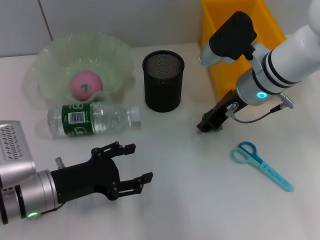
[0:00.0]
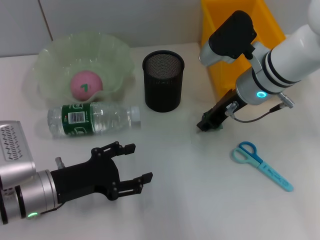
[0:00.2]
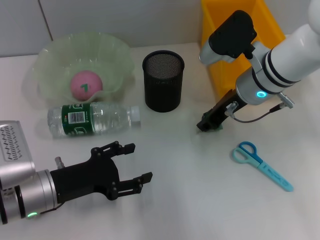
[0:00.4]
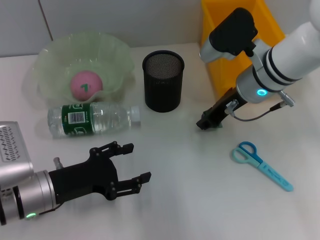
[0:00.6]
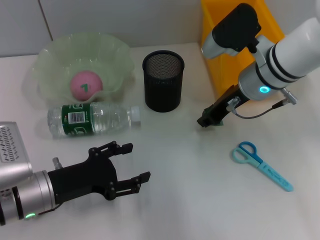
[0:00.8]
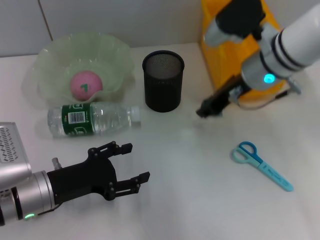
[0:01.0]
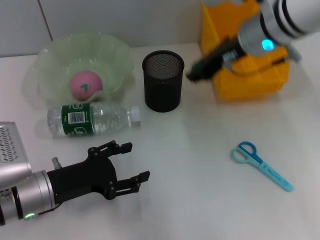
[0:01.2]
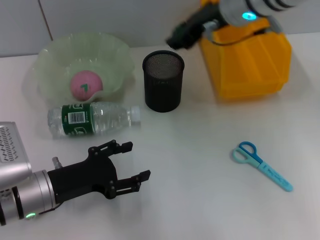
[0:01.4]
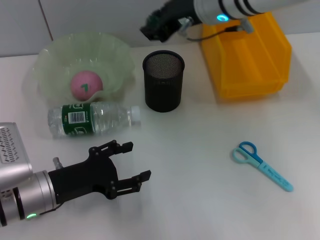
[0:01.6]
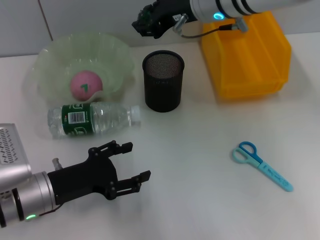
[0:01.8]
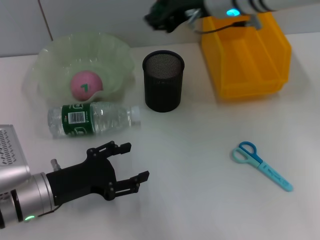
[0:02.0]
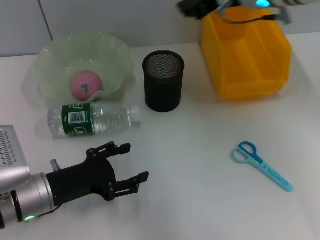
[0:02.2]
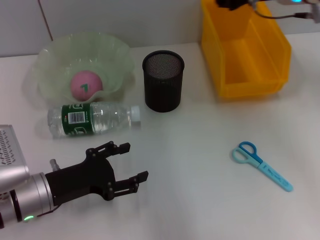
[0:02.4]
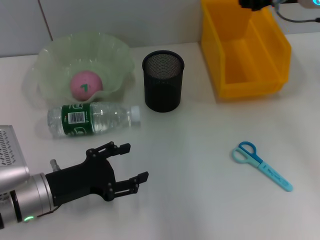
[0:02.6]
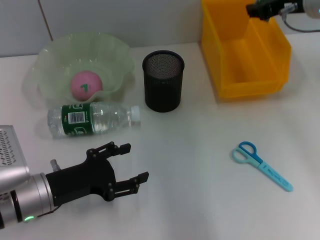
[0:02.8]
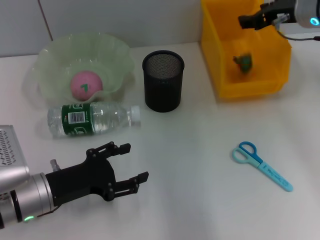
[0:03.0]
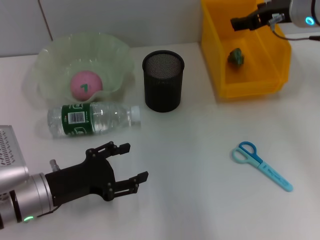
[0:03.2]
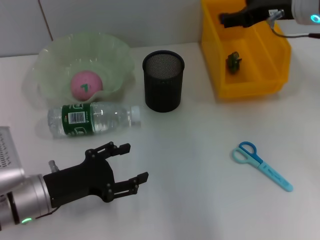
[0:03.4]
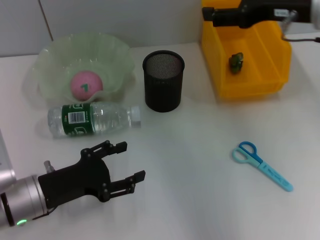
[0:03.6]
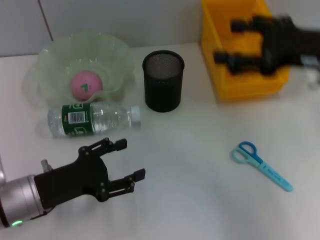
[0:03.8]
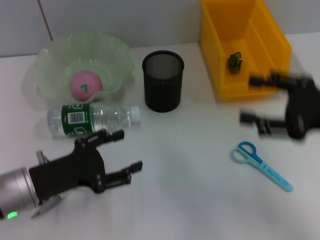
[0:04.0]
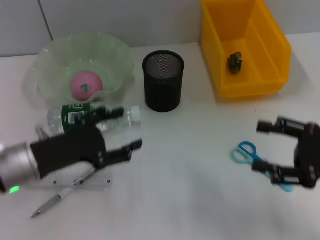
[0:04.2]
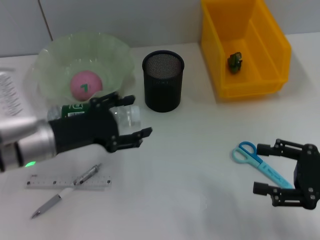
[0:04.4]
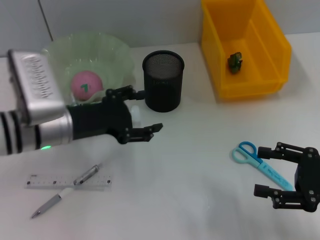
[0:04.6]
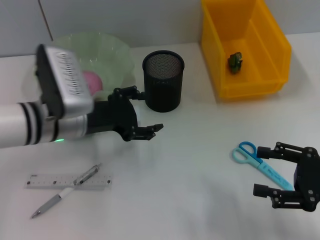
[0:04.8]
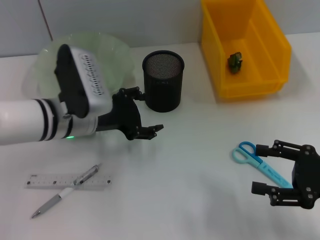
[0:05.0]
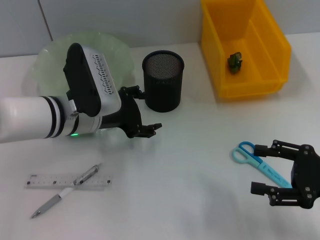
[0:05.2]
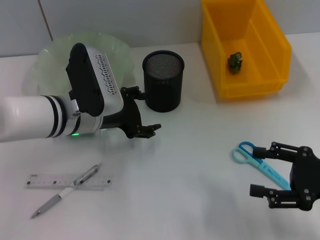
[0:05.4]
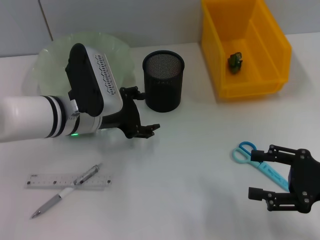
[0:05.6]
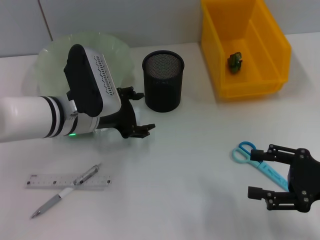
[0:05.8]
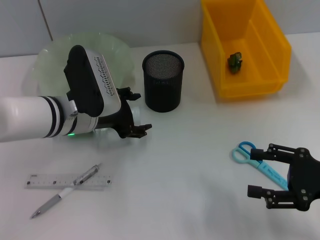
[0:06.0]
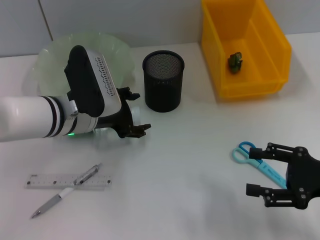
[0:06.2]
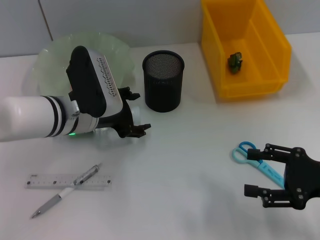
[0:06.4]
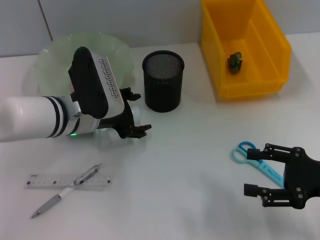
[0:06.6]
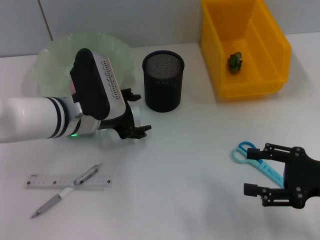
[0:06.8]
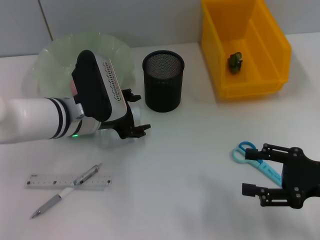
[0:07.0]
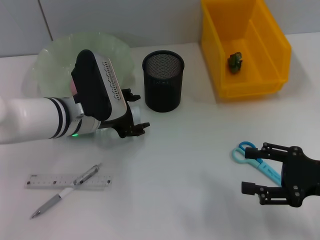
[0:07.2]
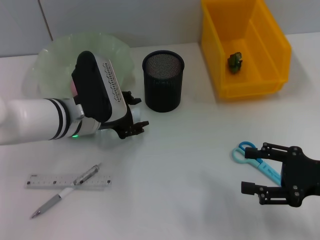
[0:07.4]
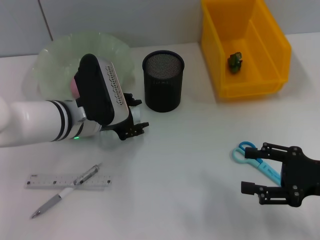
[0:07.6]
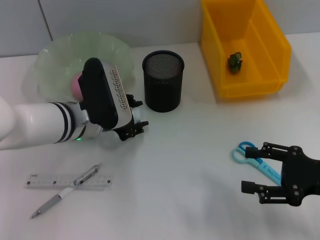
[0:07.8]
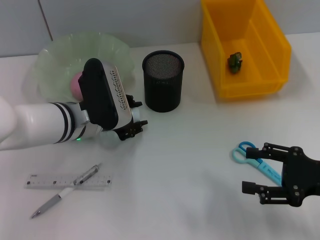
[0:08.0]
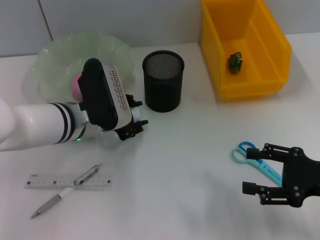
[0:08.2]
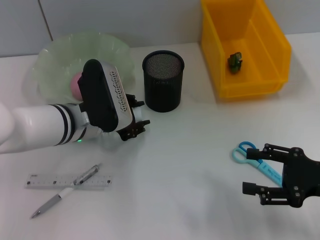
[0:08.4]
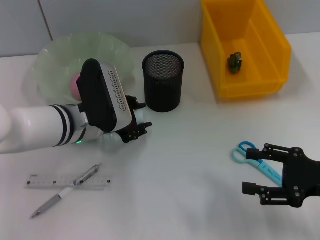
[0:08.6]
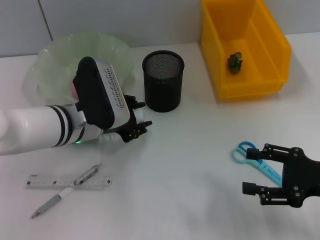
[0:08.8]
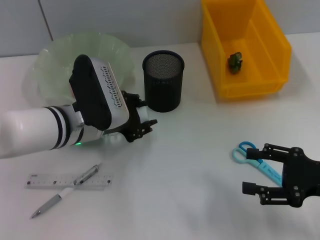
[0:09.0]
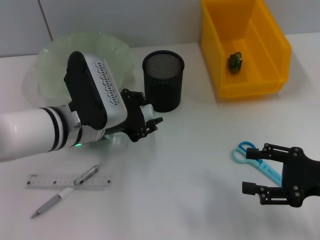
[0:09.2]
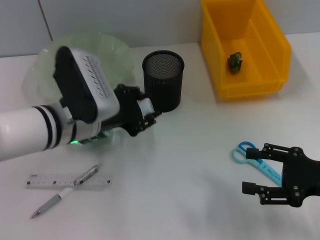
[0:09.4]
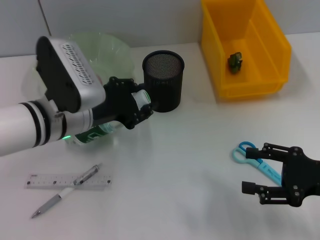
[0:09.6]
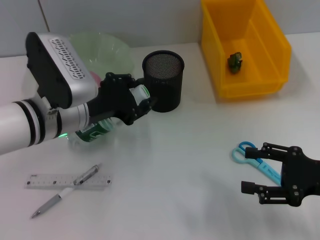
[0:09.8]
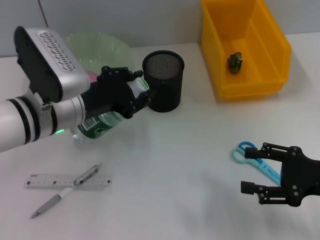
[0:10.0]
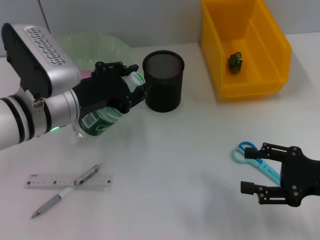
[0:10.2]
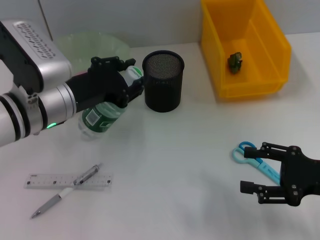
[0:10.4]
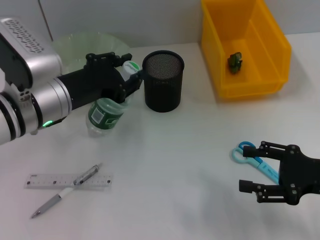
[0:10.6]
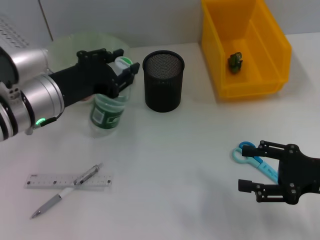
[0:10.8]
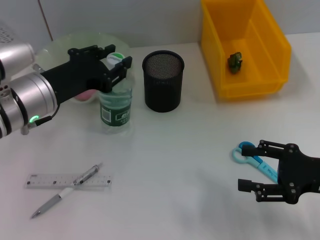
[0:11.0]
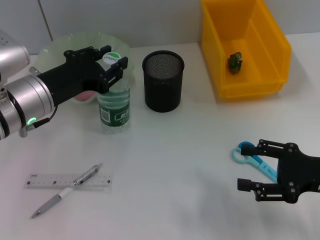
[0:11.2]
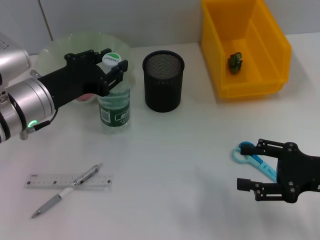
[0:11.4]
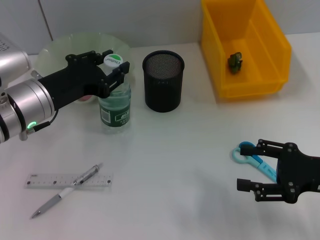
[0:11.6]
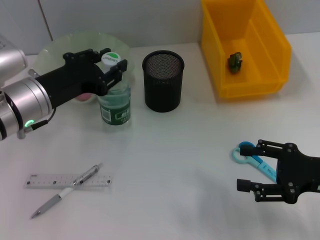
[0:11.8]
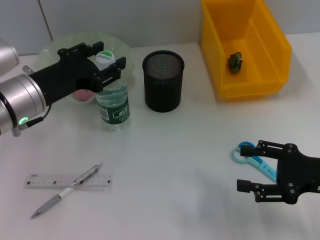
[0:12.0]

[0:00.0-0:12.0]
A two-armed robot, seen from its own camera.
Step, 0:00.2 to 0:03.0: Place the plastic into the trash can with the right hand.
Step, 0:03.2 to 0:08.2: Grab the water bottle with the left hand.
Step, 0:08.4 to 0:12.0: Place the water bottle on the table with the left hand.
0:00.0 to 0:01.6: The right gripper moves upward and to the left, approximately 10 cm.
0:01.6 to 0:03.0: The right gripper travels to the right by approximately 15 cm.
0:03.0 to 0:04.4: The left gripper shifts approximately 10 cm upward and forward. Meanwhile the right gripper heads backward and downward, covering some 25 cm, and opens its fingers.
0:04.4 to 0:06.0: The left gripper moves to the right, some 5 cm.
0:06.0 to 0:09.0: The grippers make only small movements.
0:09.0 to 0:10.4: The left gripper shifts by approximately 5 cm.
0:10.4 to 0:12.0: The grippers move only a little.

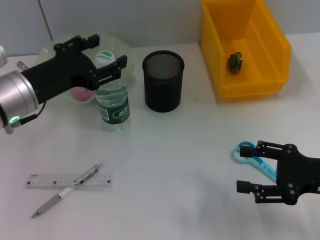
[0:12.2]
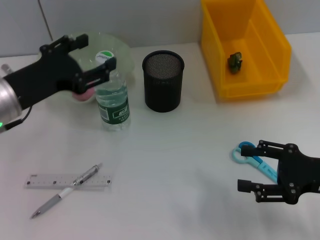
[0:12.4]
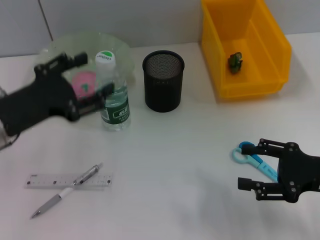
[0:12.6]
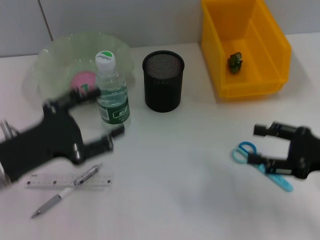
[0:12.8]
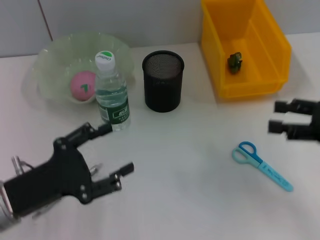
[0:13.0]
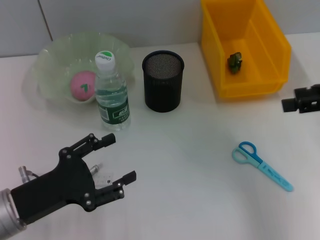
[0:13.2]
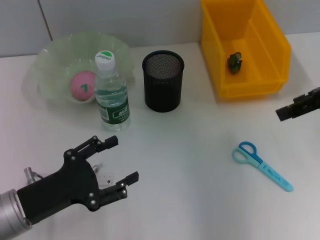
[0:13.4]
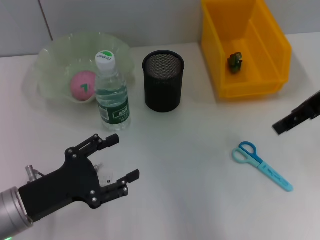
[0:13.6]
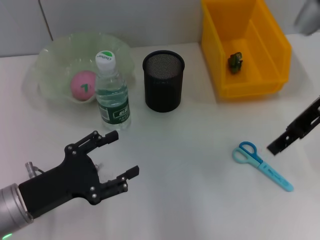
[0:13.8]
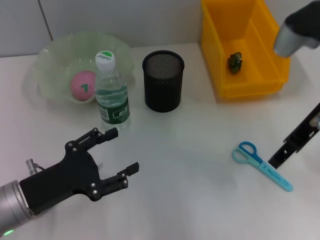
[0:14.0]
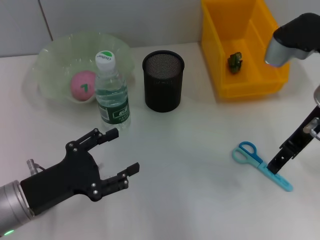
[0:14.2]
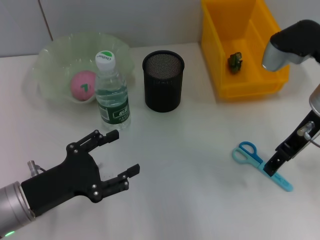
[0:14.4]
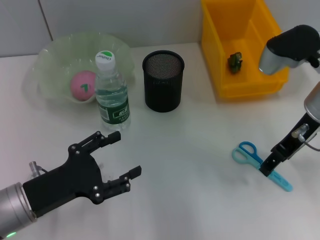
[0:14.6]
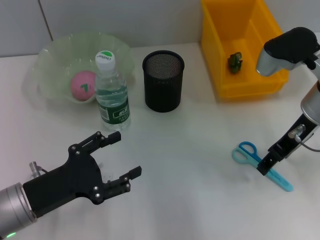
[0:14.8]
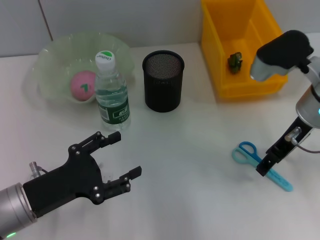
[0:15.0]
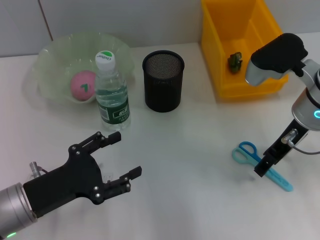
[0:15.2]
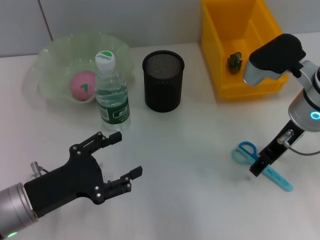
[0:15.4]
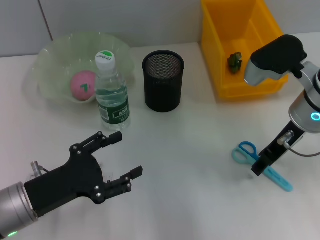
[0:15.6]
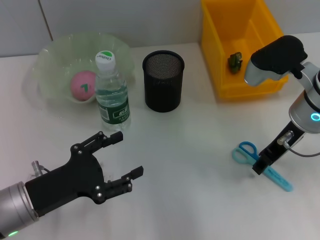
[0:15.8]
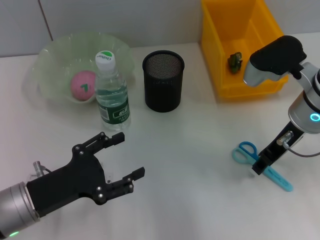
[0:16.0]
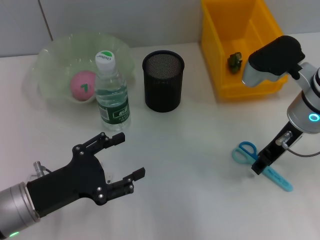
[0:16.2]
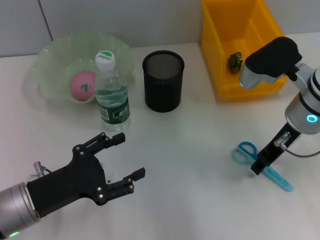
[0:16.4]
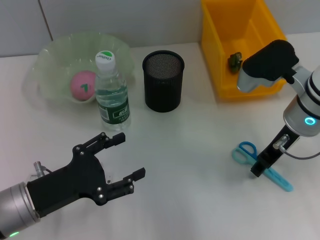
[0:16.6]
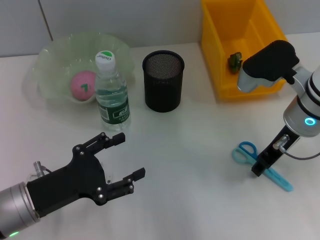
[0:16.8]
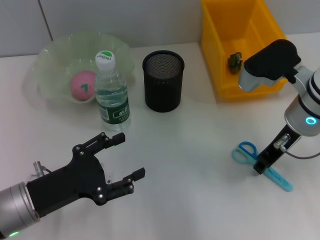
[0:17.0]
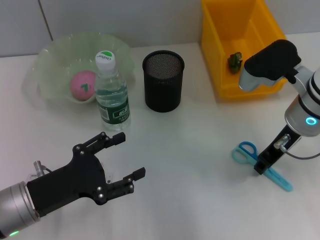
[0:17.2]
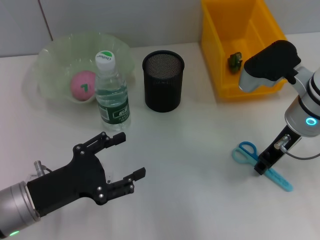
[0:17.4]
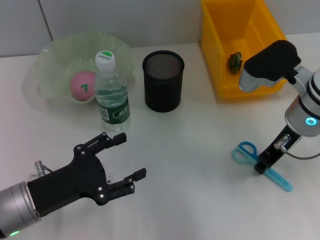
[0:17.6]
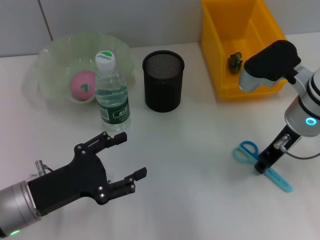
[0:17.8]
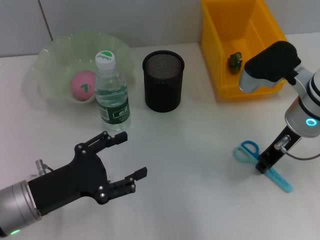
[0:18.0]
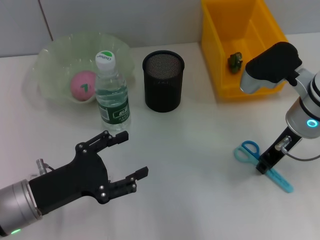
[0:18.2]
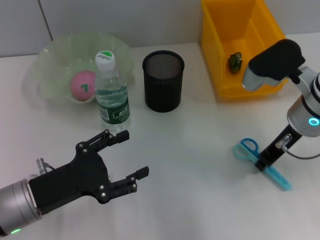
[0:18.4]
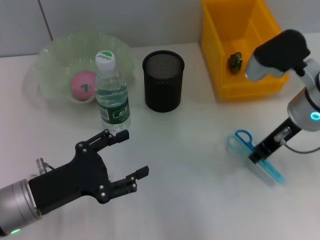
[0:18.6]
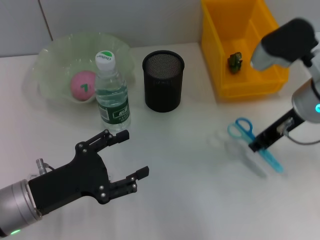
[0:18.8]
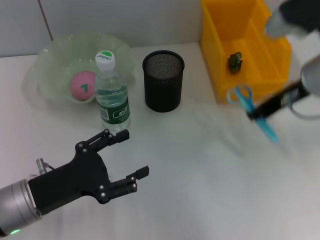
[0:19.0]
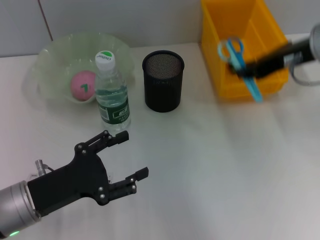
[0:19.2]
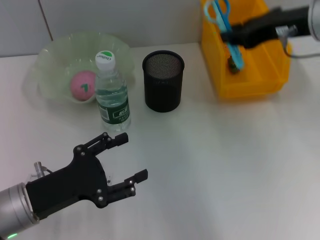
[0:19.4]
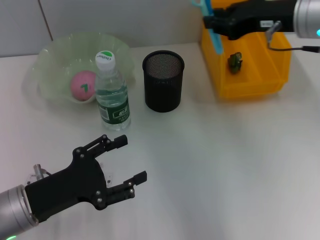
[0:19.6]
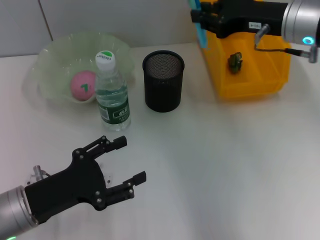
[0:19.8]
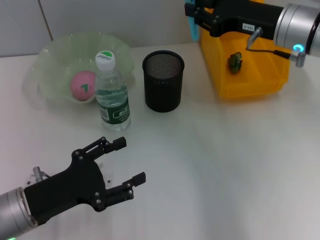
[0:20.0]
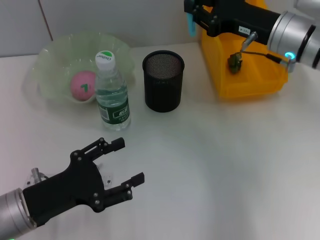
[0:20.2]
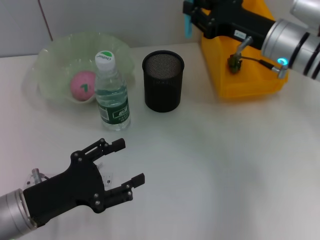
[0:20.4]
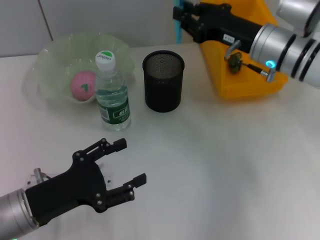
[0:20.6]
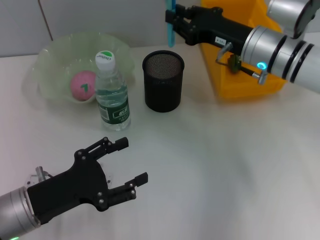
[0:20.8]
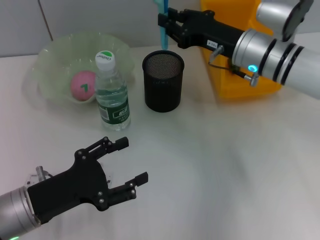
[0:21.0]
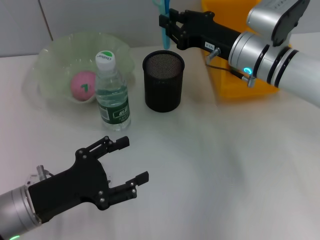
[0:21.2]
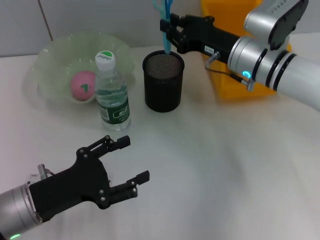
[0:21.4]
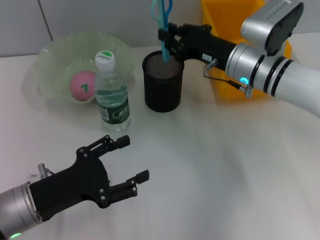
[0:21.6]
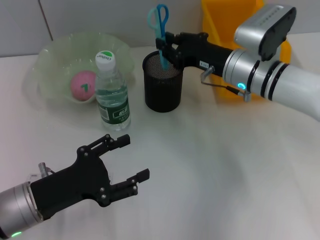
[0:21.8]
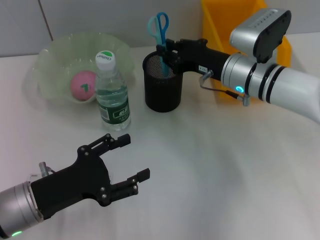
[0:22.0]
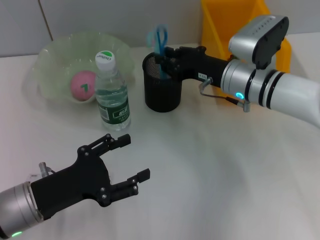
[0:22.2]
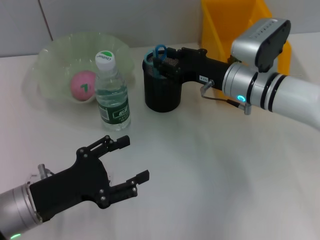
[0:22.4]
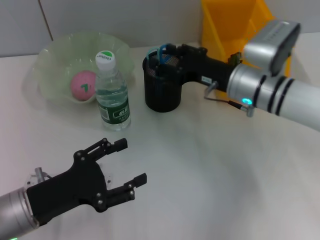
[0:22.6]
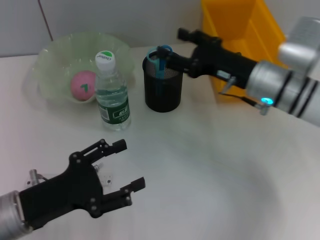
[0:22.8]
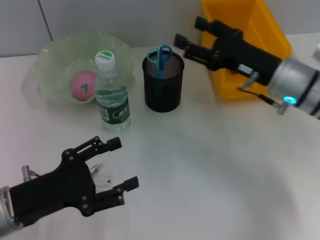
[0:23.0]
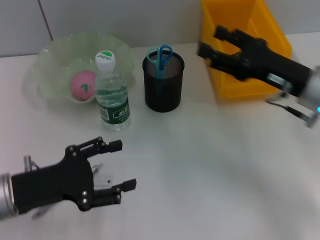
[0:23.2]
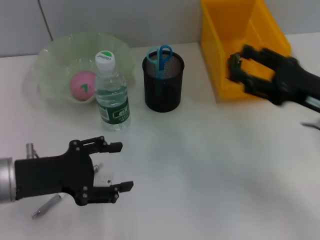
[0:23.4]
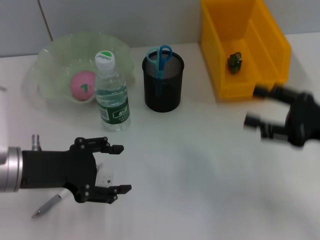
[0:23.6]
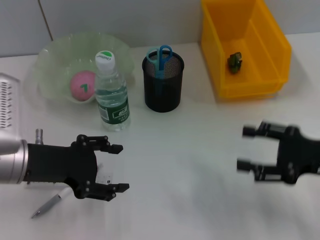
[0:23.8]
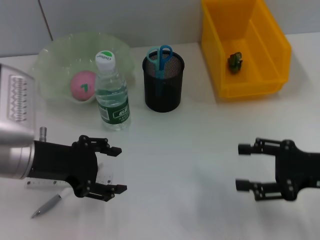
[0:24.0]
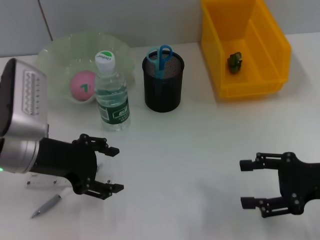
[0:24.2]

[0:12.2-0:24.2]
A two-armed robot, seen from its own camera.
Step, 0:12.2 to 0:18.0: Grab the blue scissors with the right hand.
Step, 0:18.2 to 0:22.4: Place the blue scissors into the pen holder with the right hand.
0:12.2 to 0:13.8: The left gripper heads backward and downward, covering some 15 cm; the right gripper heads upward and forward, covering roughly 20 cm.
0:13.8 to 0:15.2: The right gripper heads downward, covering roughly 5 cm.
0:15.2 to 0:16.6: The right gripper closes its fingers.
0:16.6 to 0:18.2: Both grippers stay about where they are.
0:18.2 to 0:19.8: The right gripper moves upward, about 5 cm.
0:19.8 to 0:21.2: The right gripper heads downward, covering roughly 10 cm.
0:21.2 to 0:22.6: There are only small adjustments of the grippers.
0:22.6 to 0:24.2: The right gripper is displaced backward and to the right by roughly 20 cm, and opens. Meanwhile the left gripper is displaced upward and forward by some 10 cm.
